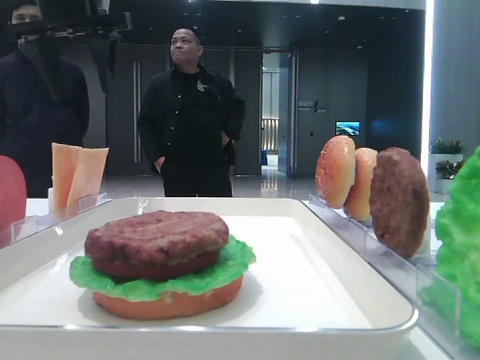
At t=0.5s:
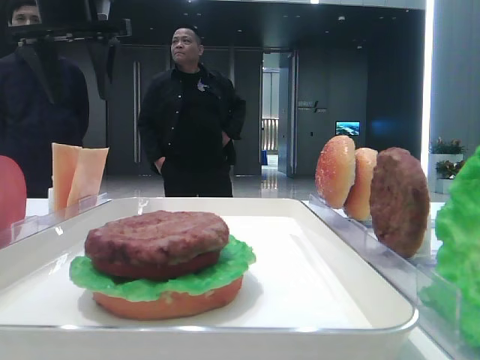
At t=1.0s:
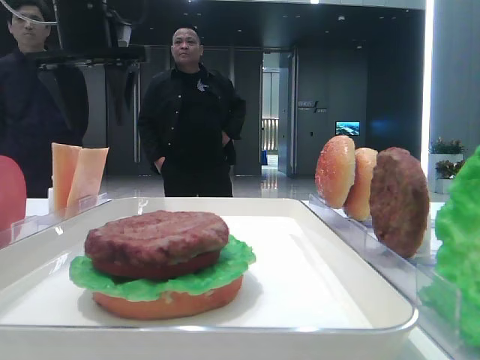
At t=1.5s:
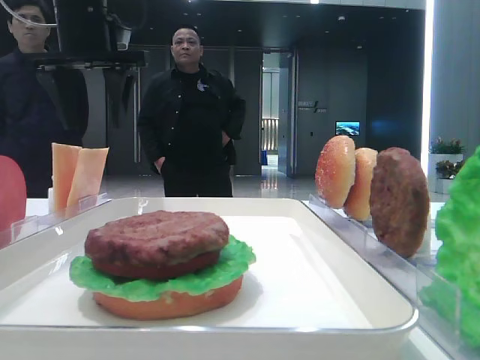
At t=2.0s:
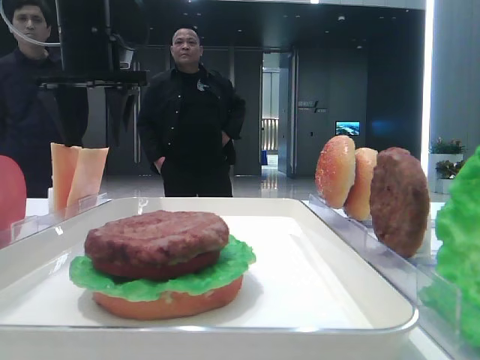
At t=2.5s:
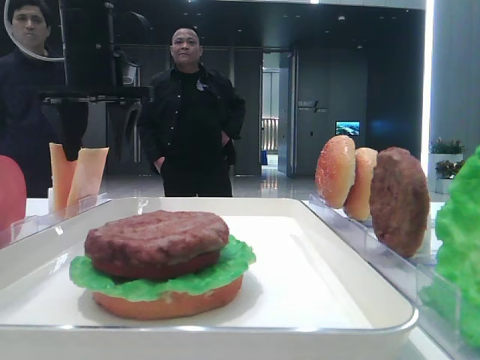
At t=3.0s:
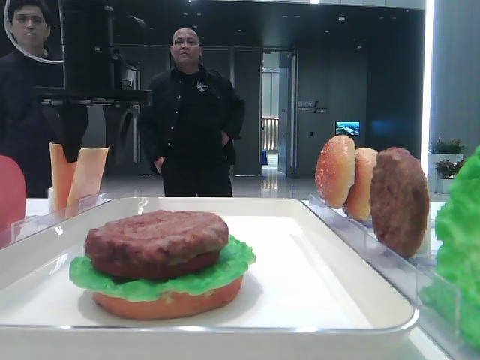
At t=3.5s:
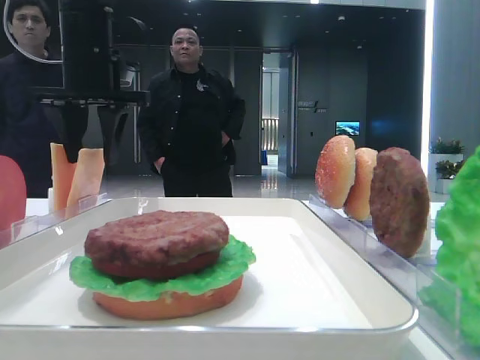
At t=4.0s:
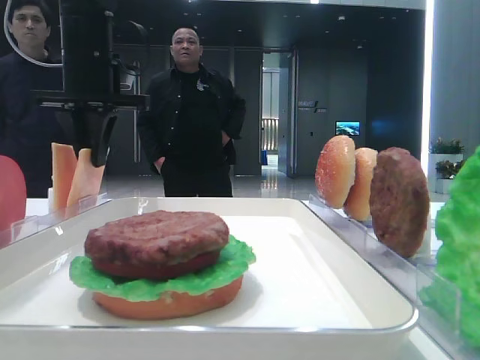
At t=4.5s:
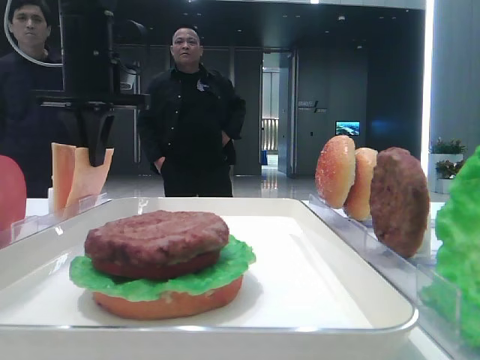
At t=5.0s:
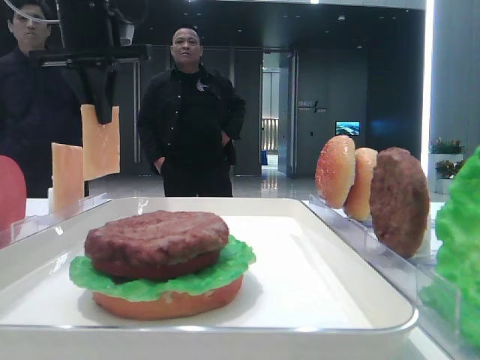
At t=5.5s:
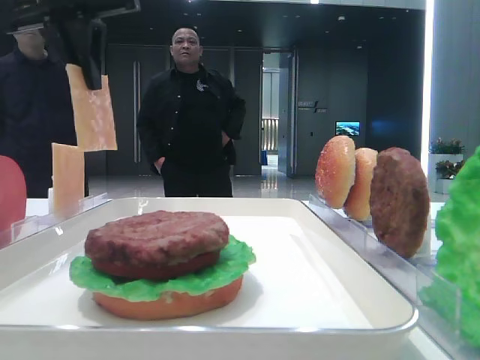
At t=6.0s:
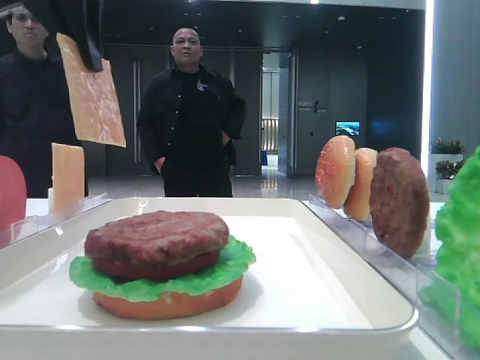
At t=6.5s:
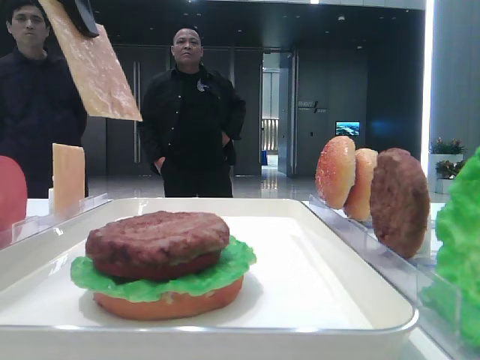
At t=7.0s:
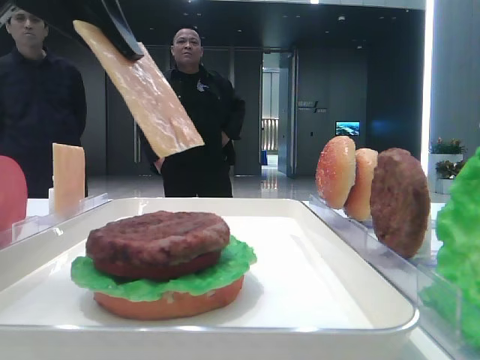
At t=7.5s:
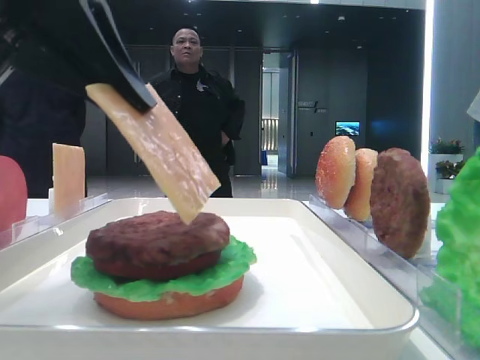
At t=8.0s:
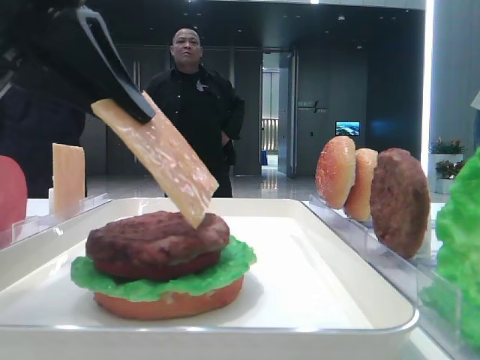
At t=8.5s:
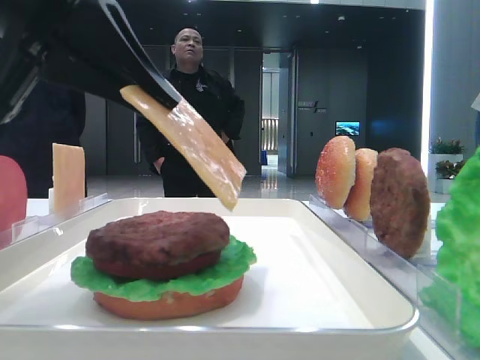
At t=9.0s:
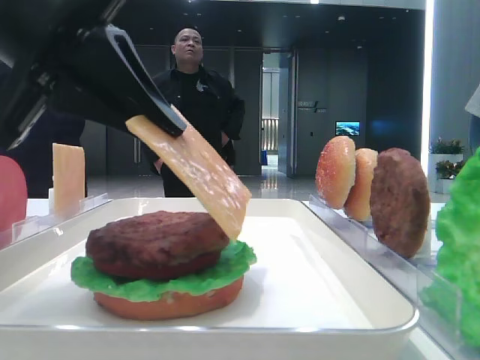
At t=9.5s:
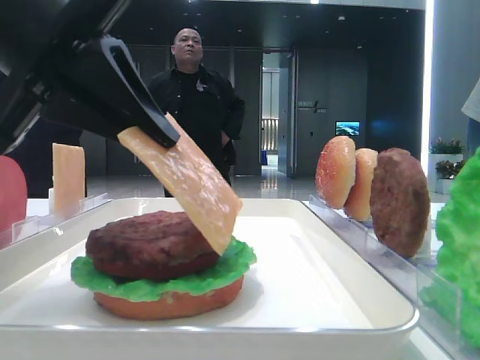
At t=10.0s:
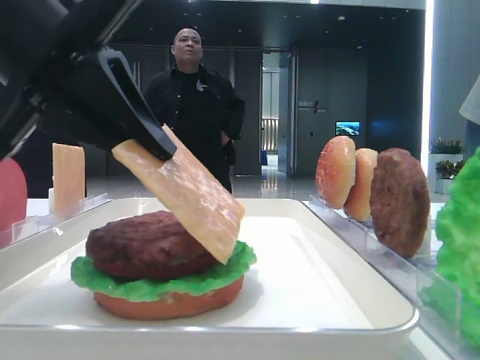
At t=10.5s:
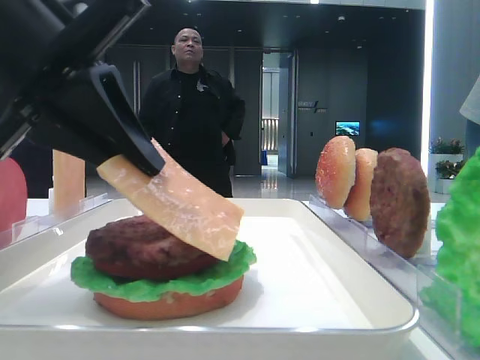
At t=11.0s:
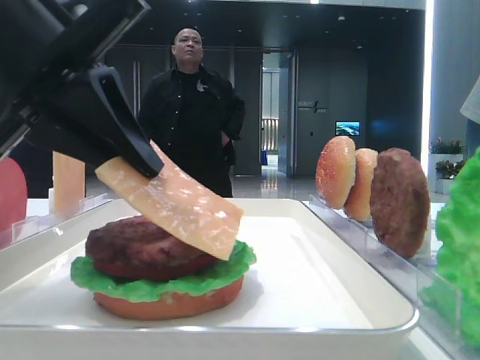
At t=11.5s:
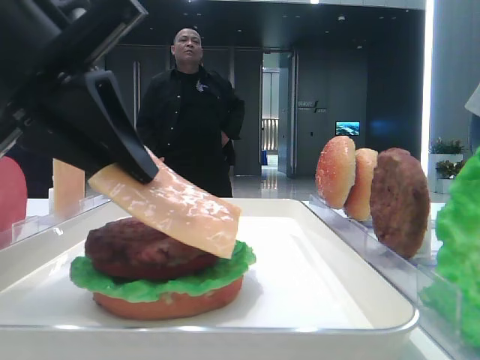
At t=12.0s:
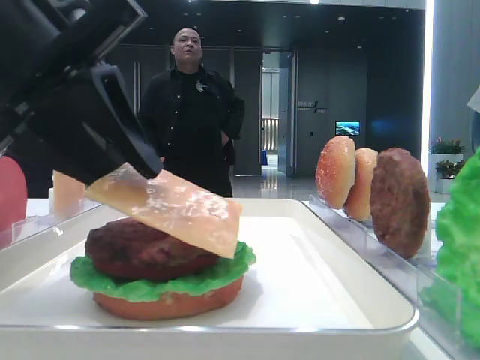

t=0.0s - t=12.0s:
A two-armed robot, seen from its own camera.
Step, t=0.0s - t=4.0s: Pick up the cheese slice with the left hand.
t=0.0s - t=2.0s: The left gripper shifts about 5 cm downward.
t=2.0s - t=4.0s: The left gripper closes.
t=4.0s - t=6.0s: The left gripper heads backward and upward, covering about 15 cm.
t=6.0s - t=8.0s: The left gripper goes roughly 15 cm backward and downward.
t=8.0s - t=10.0s: There are only small adjustments of the grippers.
t=10.0s - t=12.0s: The left gripper opens up.

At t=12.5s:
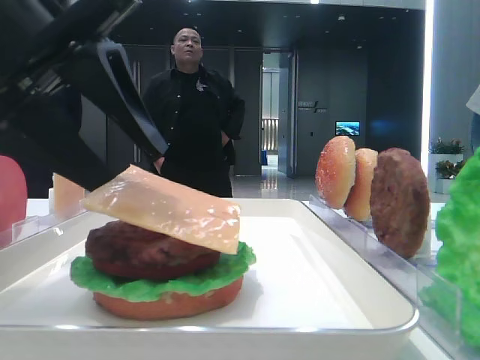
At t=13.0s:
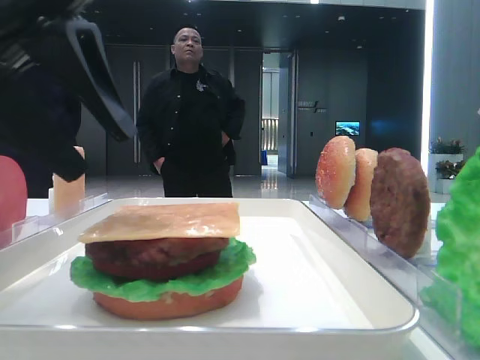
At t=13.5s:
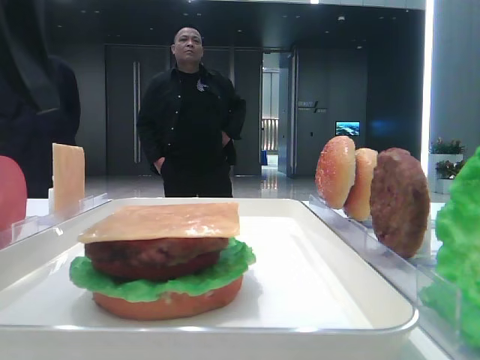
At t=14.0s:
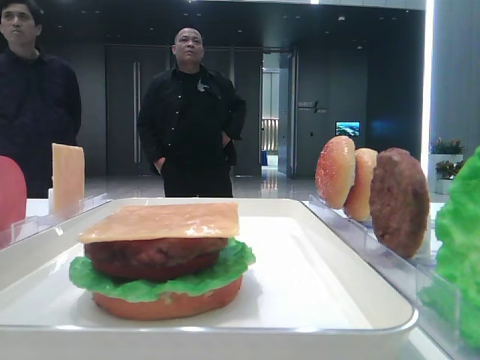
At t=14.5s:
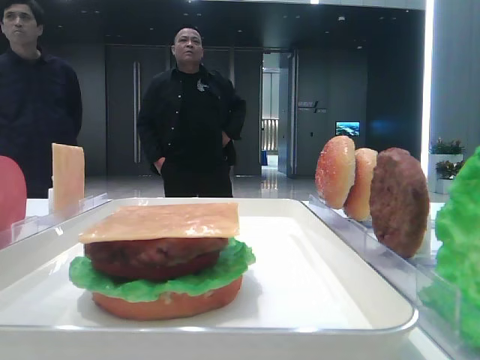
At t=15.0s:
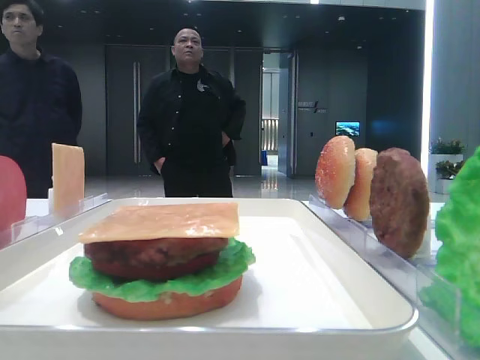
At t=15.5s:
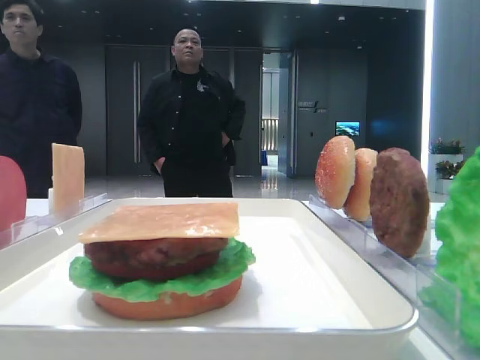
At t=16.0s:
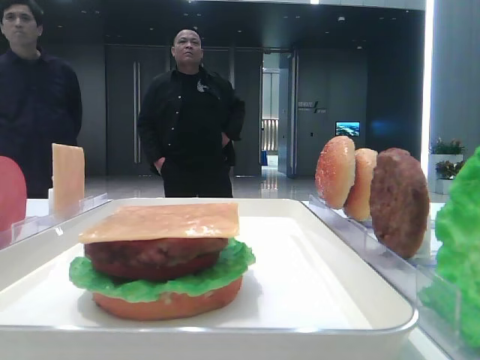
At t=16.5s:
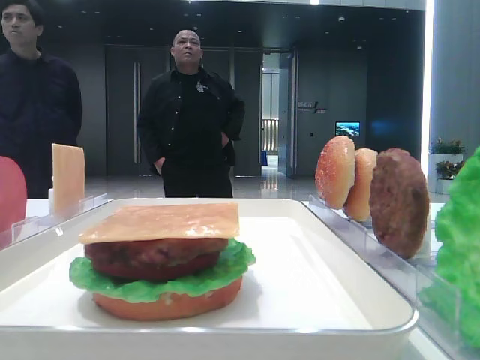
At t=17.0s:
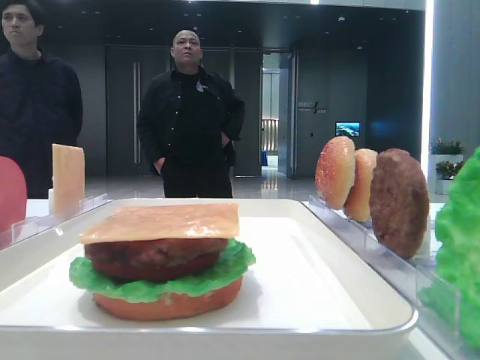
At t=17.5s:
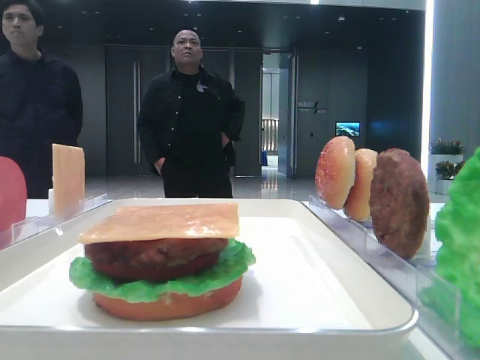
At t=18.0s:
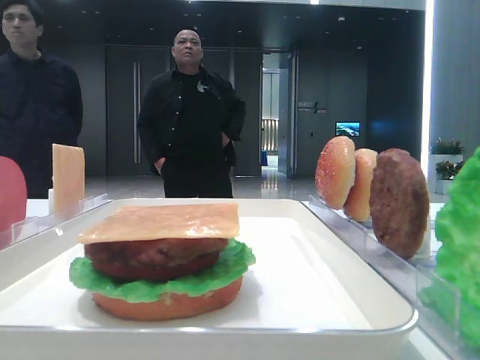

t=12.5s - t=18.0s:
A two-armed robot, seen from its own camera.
t=12.5s - t=14.5s: The left gripper is displaced upward and to the left by about 10 cm, and opens.
t=14.5s - t=16.0s: The left gripper moves backward, to the left and upward, about 15 cm.

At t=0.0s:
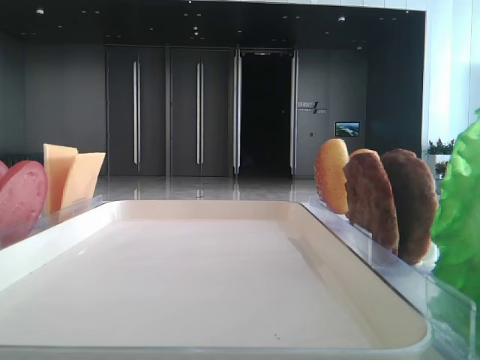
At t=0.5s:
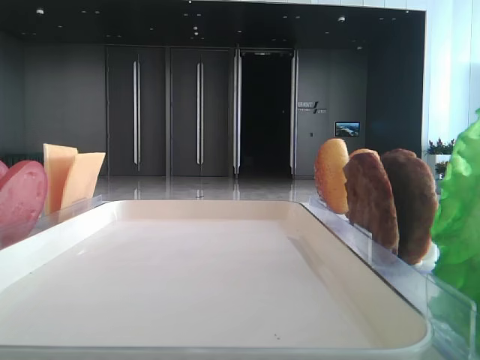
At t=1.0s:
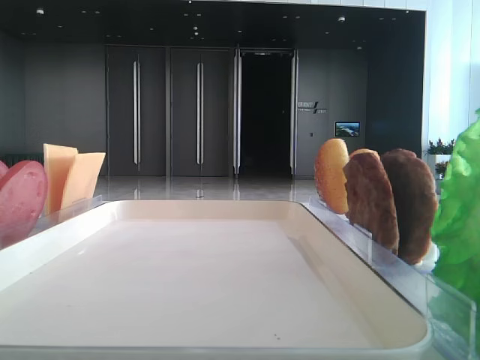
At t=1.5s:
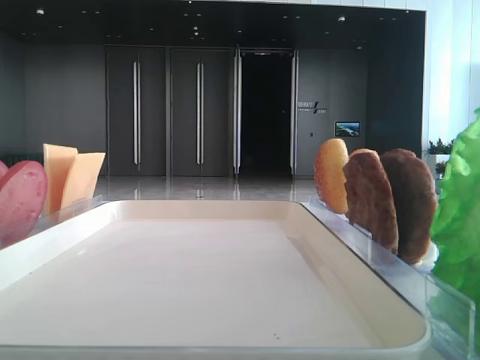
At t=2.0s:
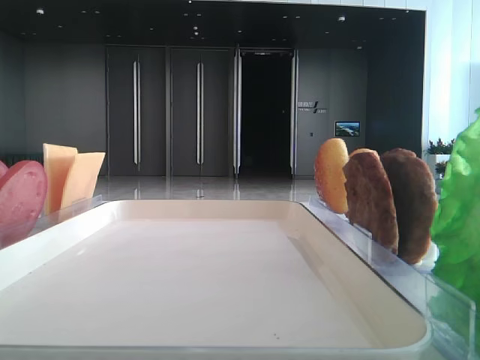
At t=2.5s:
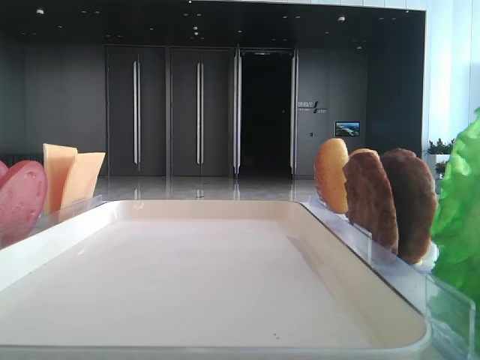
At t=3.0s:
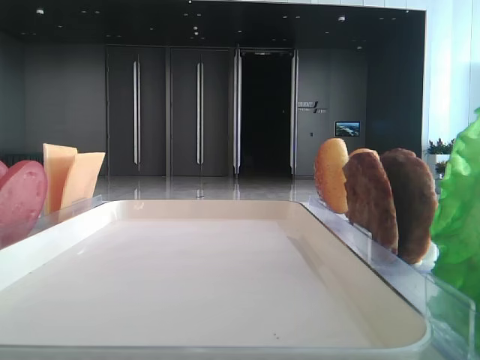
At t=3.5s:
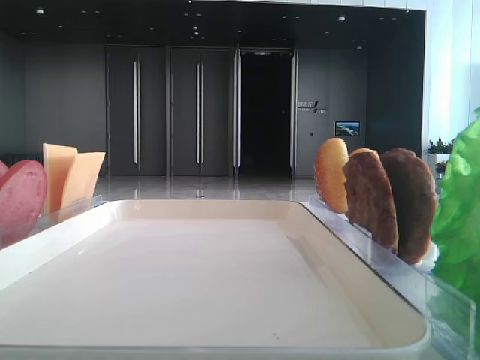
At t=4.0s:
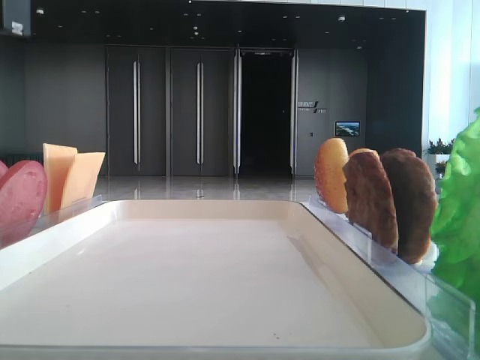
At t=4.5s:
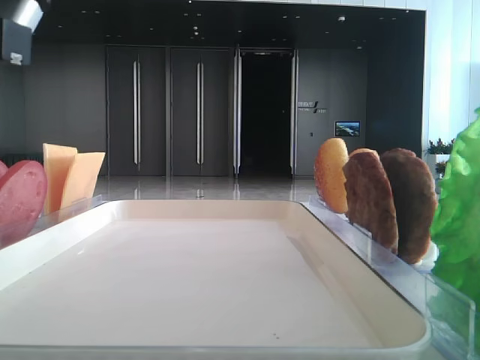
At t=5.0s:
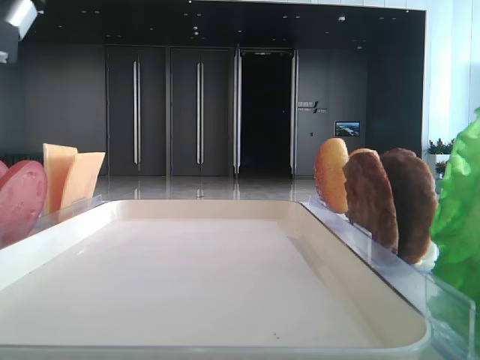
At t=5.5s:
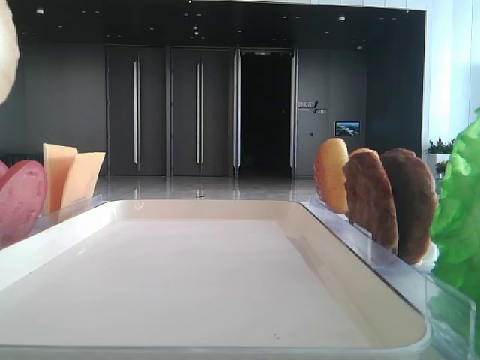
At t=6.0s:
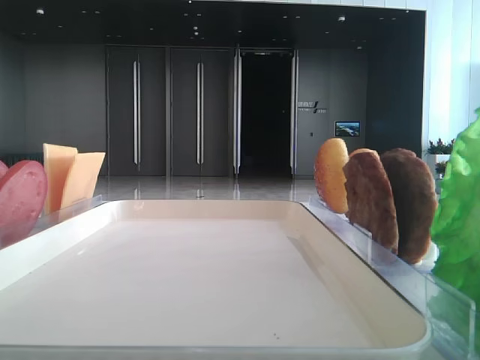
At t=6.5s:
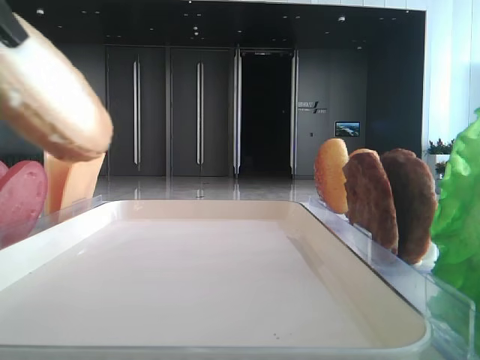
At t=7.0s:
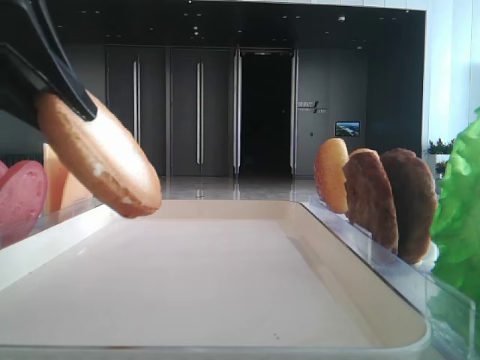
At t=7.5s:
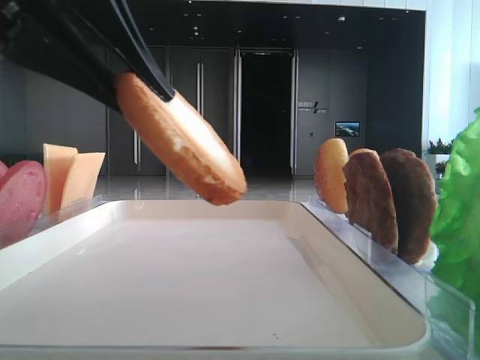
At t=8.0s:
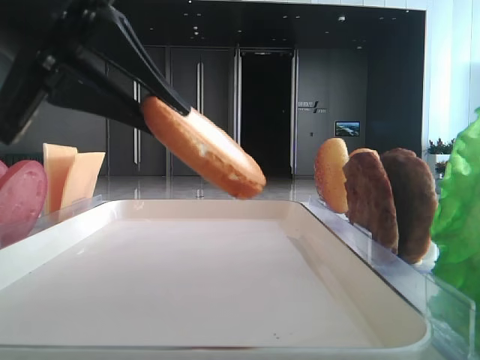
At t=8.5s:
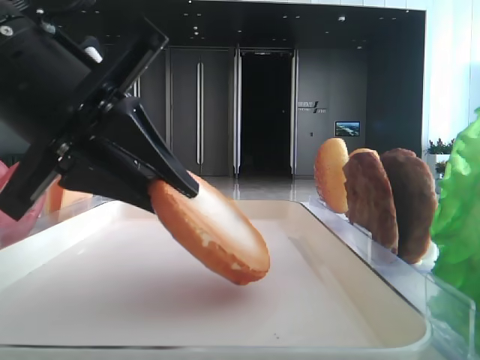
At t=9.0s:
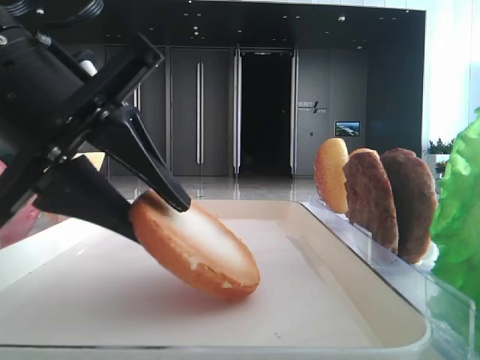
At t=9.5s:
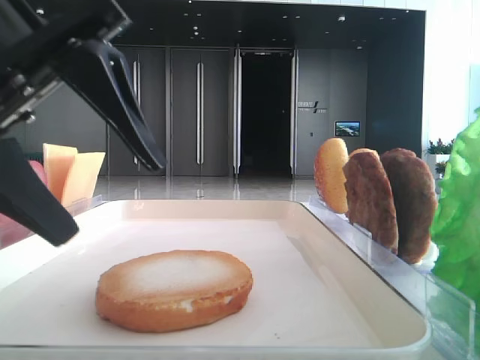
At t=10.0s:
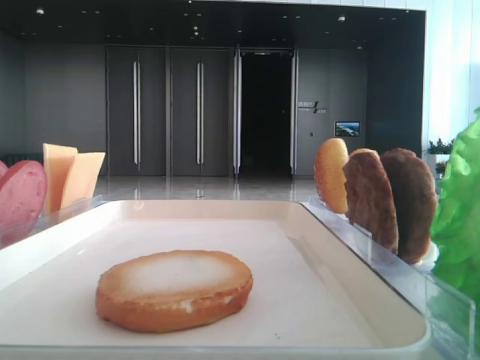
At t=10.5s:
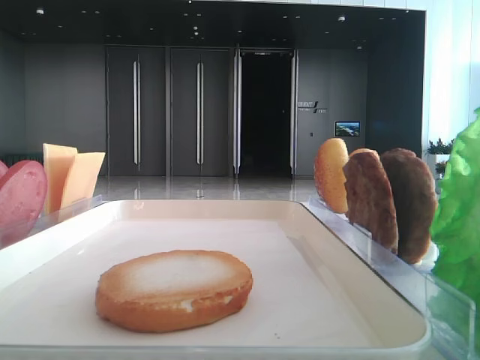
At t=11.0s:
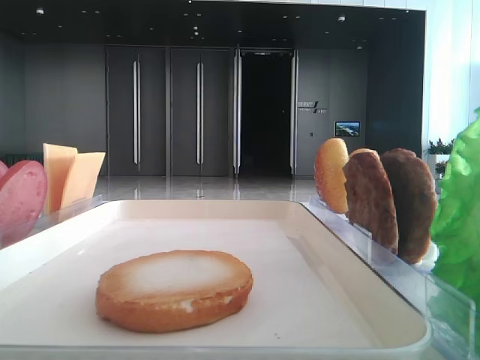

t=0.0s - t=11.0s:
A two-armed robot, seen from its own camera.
Step, t=0.0s - t=4.5s: Pick up the bottom bread with the left hand.
Step, t=5.0s - t=9.0s: Place the bread on the tray with the left hand.
t=3.5s - t=5.5s: The left gripper is displaced upward by about 5 cm, and closes up.
t=5.5s - t=7.5s: The left gripper shifts about 10 cm downward.
t=7.5s - t=9.0s: The left gripper travels downward by some 5 cm.
t=9.0s - t=11.0s: The left gripper goes some 25 cm upward and to the left, and opens its fingers.
